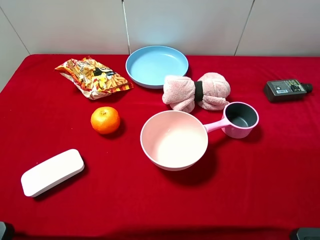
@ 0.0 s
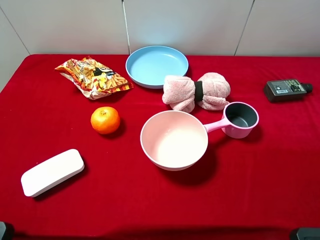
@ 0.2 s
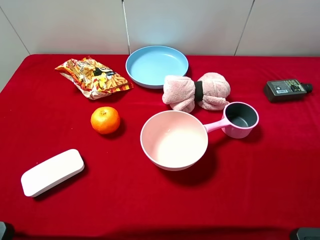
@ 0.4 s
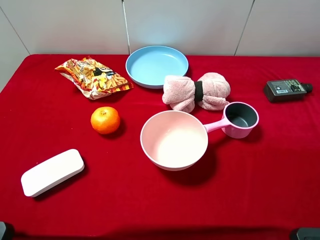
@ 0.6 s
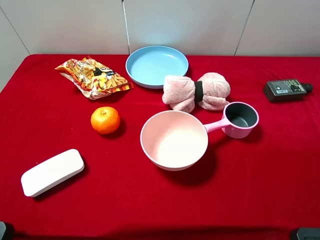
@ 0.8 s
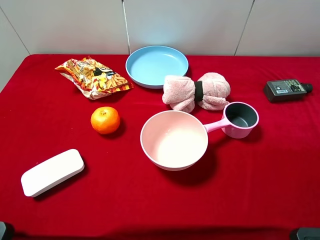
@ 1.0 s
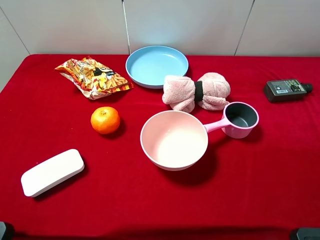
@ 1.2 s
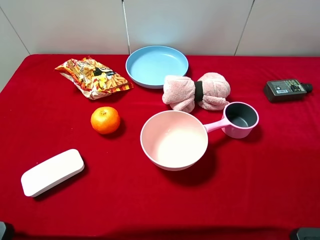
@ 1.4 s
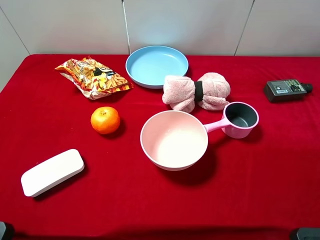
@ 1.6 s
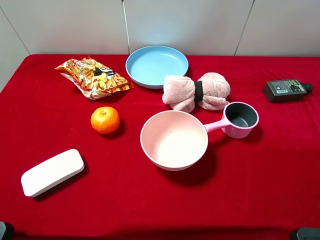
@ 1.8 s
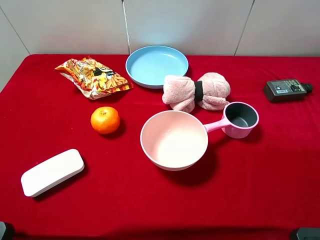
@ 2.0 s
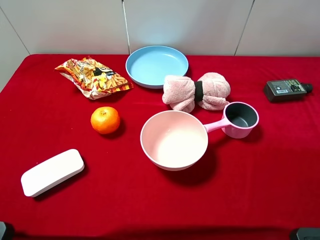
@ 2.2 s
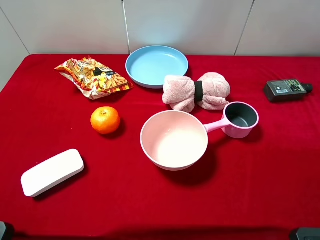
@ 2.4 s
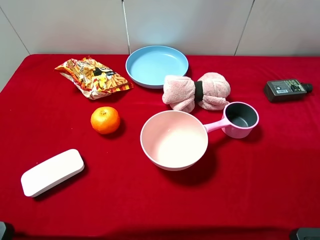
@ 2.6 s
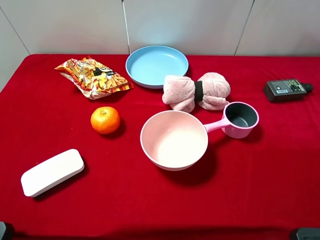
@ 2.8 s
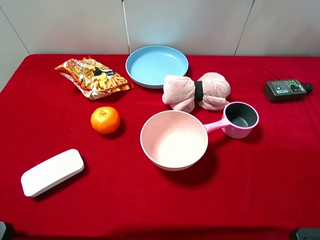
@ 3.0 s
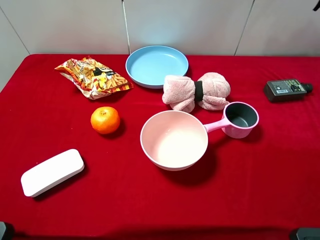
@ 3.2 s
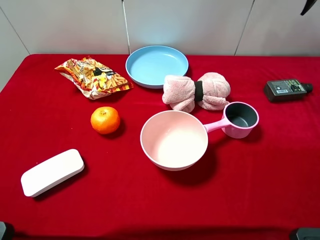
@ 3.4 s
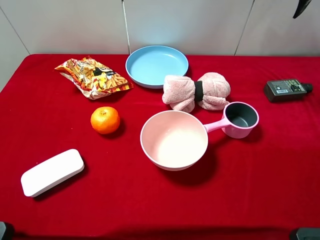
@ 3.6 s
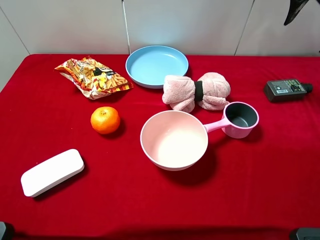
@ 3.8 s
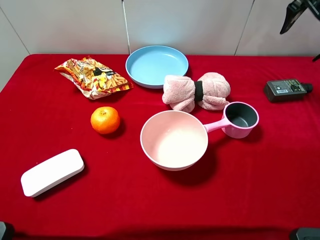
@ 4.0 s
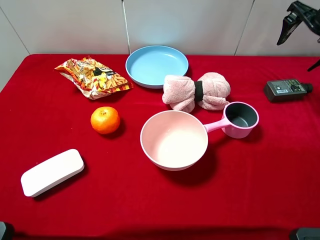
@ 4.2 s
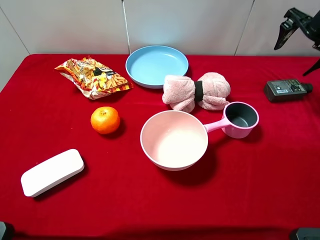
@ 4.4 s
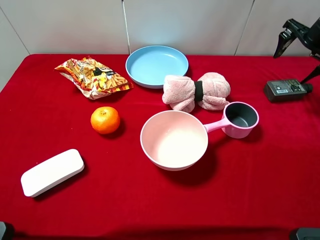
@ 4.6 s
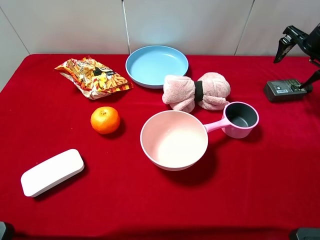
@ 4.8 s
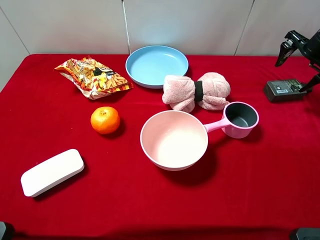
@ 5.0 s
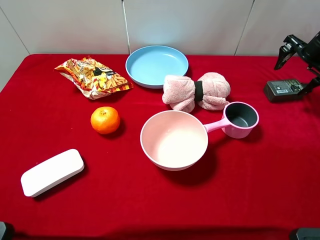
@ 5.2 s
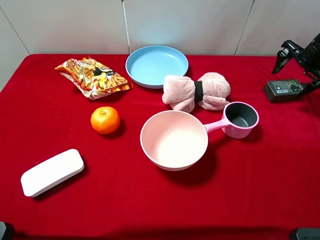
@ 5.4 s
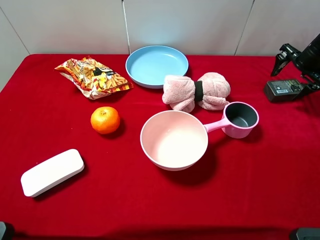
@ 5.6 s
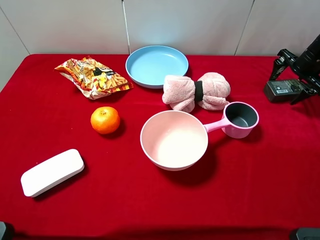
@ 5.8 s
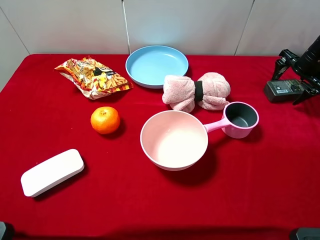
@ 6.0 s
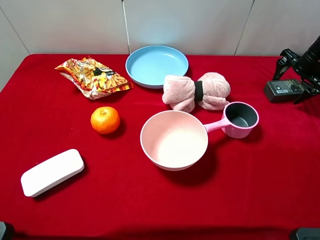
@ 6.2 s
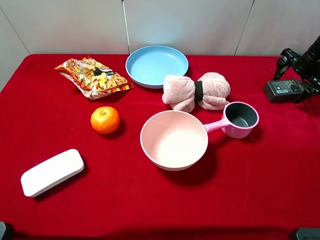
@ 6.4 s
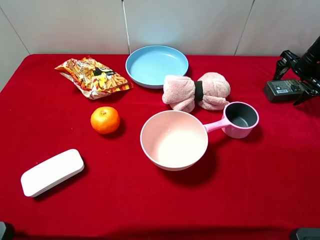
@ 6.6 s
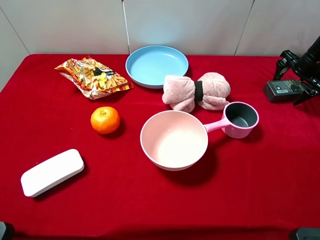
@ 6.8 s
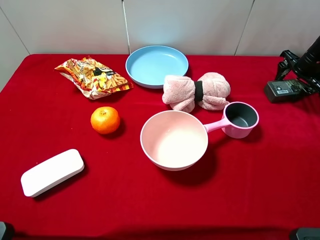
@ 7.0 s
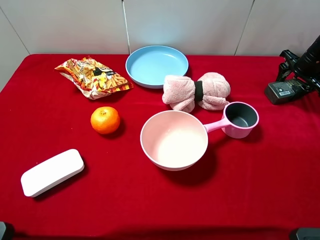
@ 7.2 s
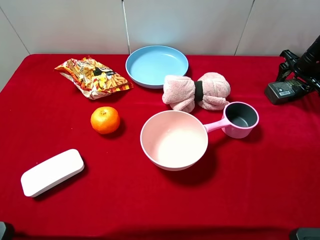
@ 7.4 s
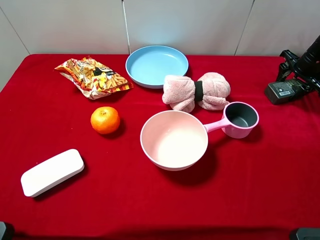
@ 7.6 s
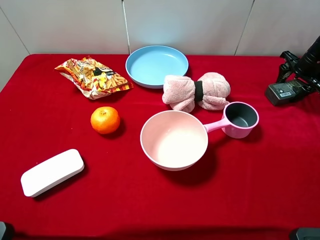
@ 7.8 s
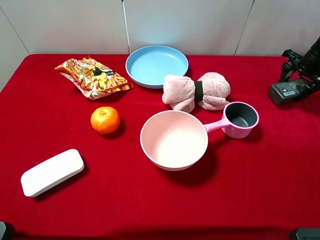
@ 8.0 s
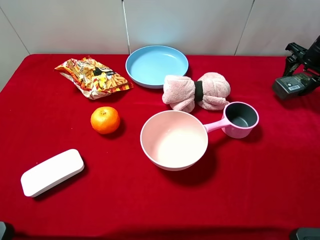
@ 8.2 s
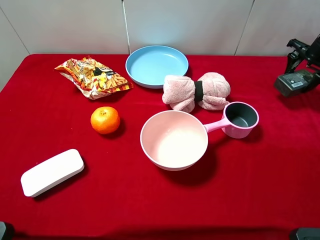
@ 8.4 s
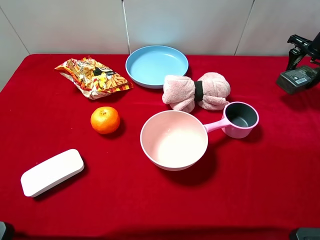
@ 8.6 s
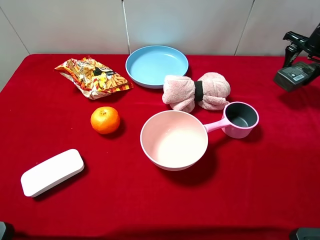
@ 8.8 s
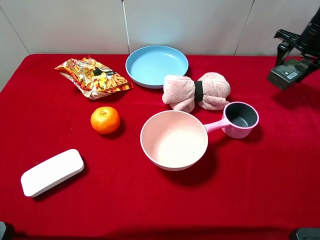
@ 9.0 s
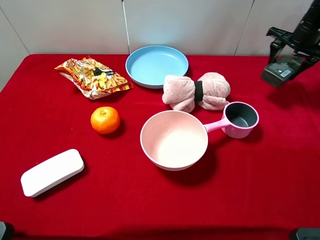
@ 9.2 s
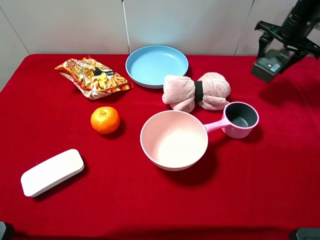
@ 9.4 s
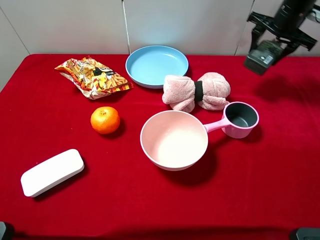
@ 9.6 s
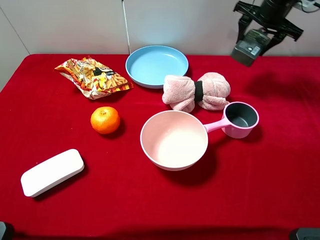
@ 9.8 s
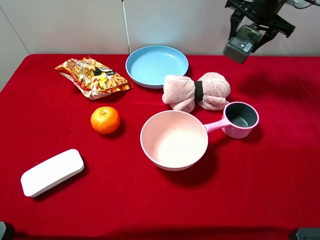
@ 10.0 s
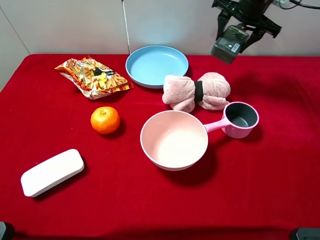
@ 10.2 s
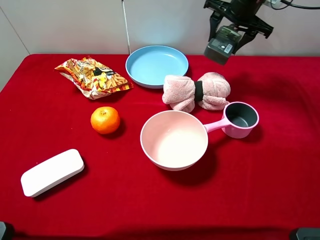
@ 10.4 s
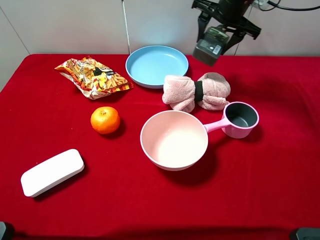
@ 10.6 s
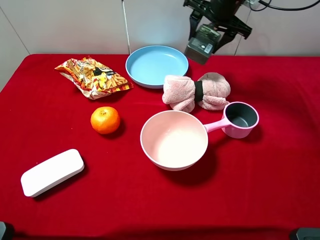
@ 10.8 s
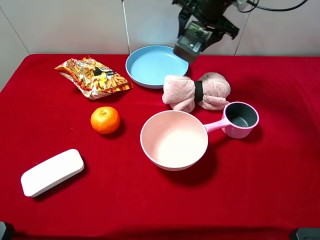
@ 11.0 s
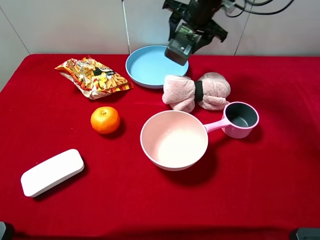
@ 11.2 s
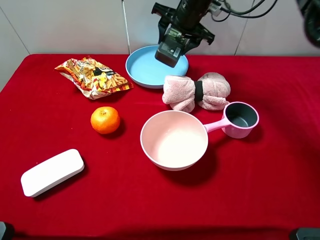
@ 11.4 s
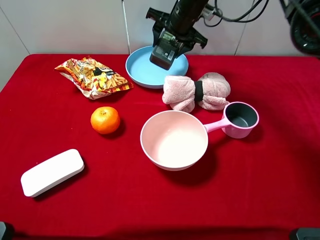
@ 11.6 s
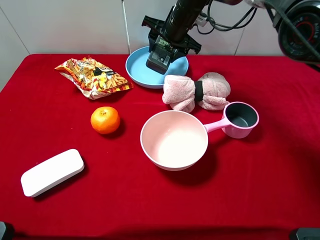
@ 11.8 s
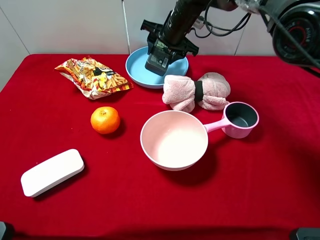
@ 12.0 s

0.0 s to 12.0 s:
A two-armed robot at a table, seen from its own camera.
Task of the whole recording: pick up an item with a gripper and place it in a random container on the desktop.
3.0 to 4.4 s: The right gripper moves downward and forward, approximately 20 cm.
4.4 to 6.0 s: The right gripper shifts some 10 cm downward.
6.0 to 7.6 s: The right gripper closes up.
7.6 to 9.0 s: The right gripper shifts roughly 5 cm upward.
9.0 to 10.4 s: The right gripper travels to the left by about 20 cm.
10.4 to 12.0 s: The right gripper moves to the left and downward, approximately 15 cm.

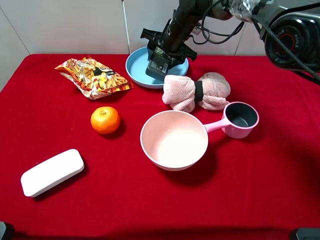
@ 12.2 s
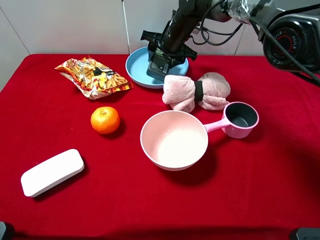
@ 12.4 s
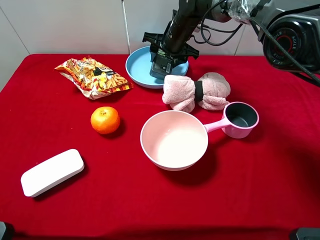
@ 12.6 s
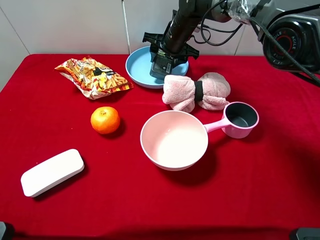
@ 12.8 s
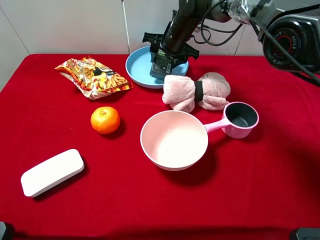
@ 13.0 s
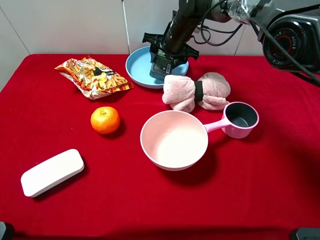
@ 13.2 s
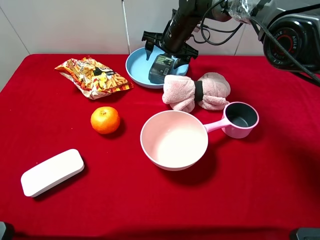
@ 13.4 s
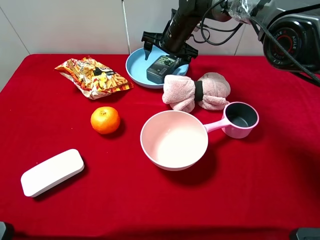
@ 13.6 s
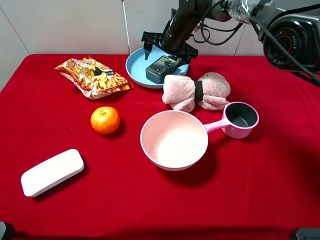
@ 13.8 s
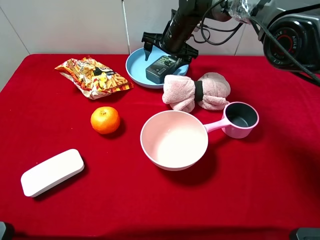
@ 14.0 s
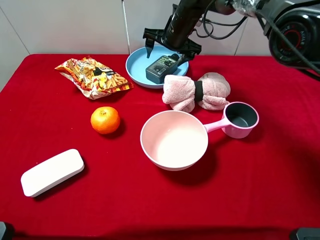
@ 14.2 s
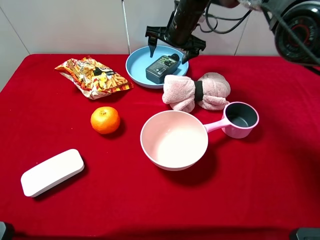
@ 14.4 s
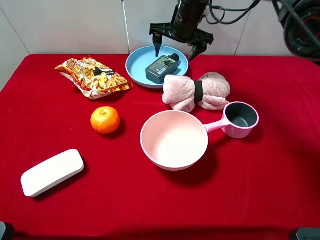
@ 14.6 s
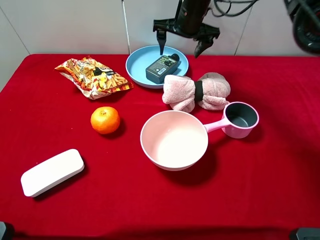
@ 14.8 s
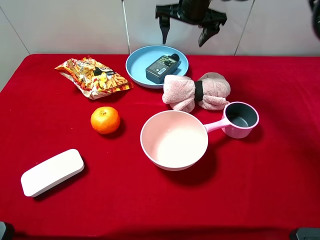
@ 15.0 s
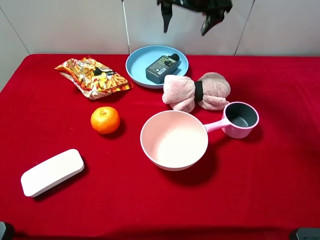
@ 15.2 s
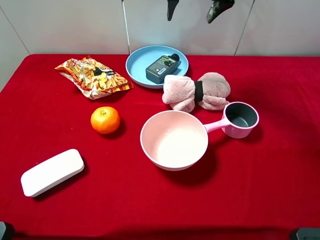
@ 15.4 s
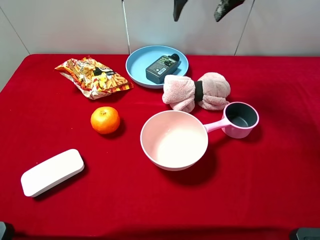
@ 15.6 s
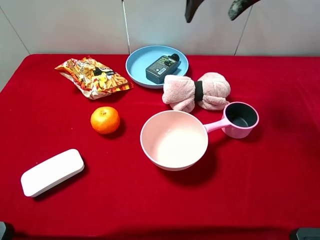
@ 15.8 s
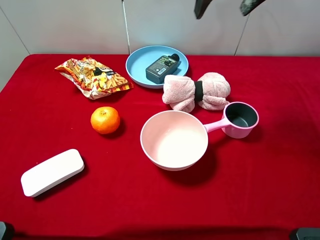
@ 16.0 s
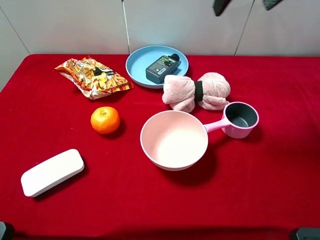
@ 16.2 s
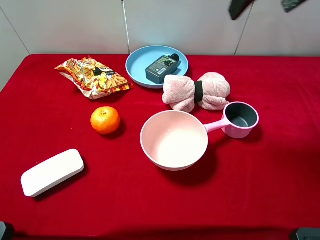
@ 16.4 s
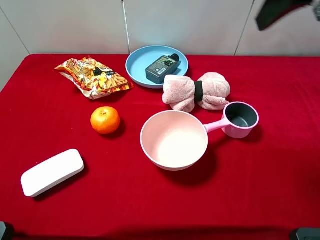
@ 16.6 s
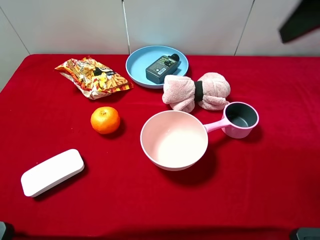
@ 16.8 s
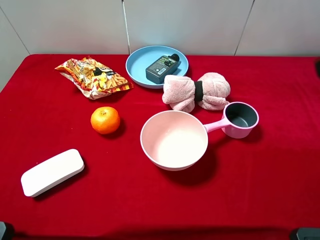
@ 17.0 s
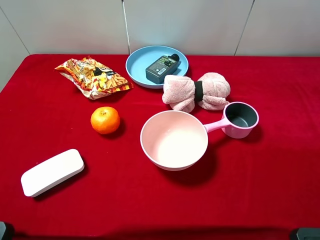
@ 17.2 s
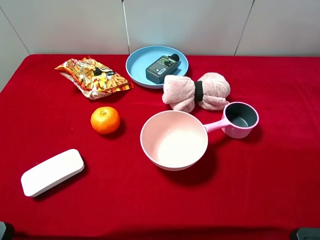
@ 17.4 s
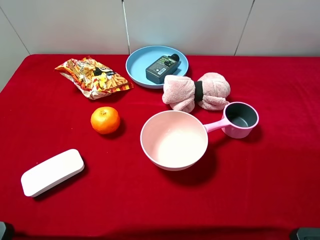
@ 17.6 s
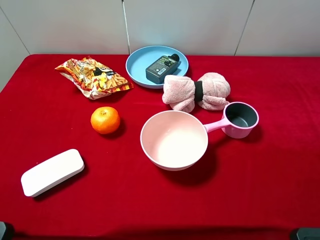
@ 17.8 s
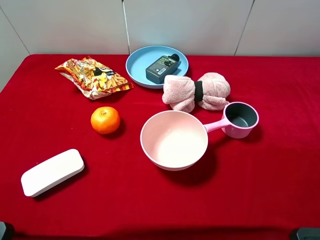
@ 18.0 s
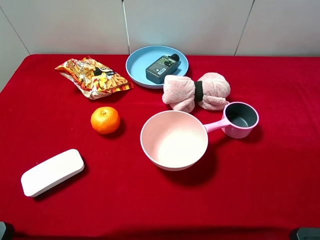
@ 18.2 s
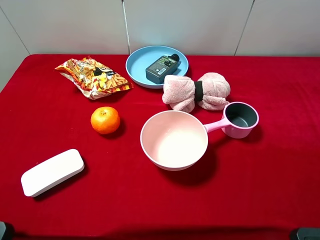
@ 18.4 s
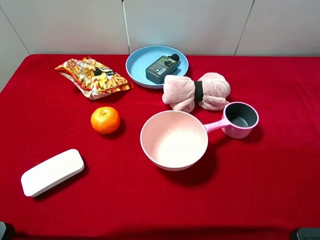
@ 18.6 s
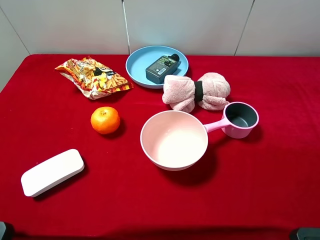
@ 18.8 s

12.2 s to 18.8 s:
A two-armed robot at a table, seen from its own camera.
Task of the whole recording: pick up an item with a gripper and place it in a random container on the desktop.
12.2 to 13.8 s: The right gripper opens.
13.8 to 15.4 s: The right gripper moves upward, roughly 15 cm.
15.4 to 17.2 s: The right gripper is displaced backward and to the right by some 40 cm.
